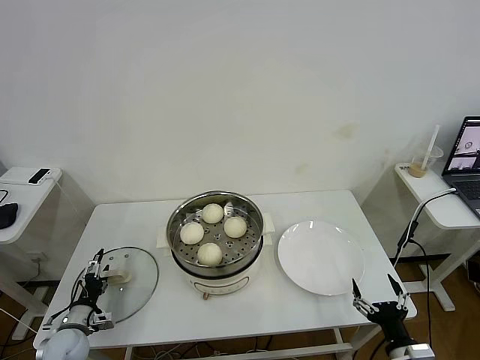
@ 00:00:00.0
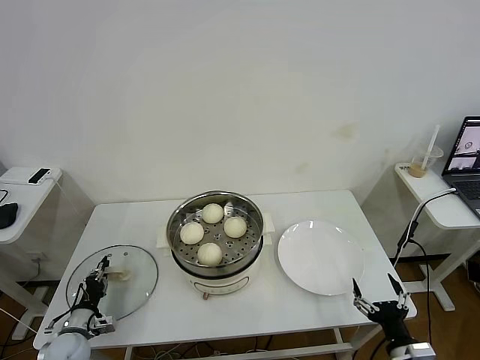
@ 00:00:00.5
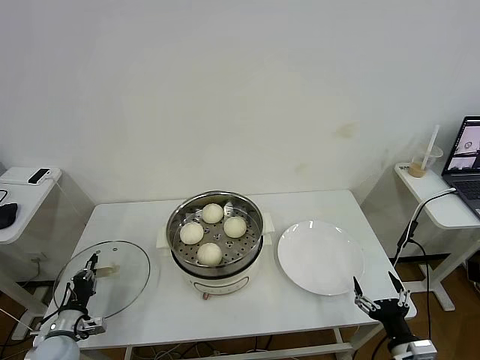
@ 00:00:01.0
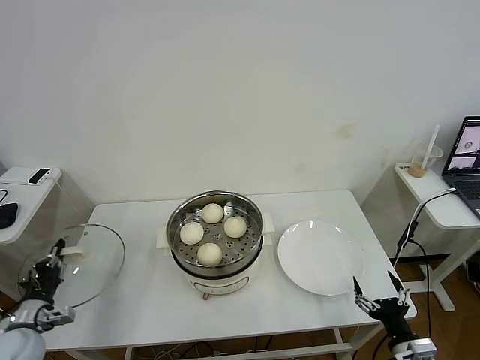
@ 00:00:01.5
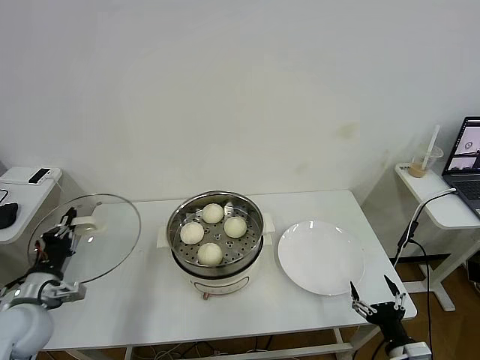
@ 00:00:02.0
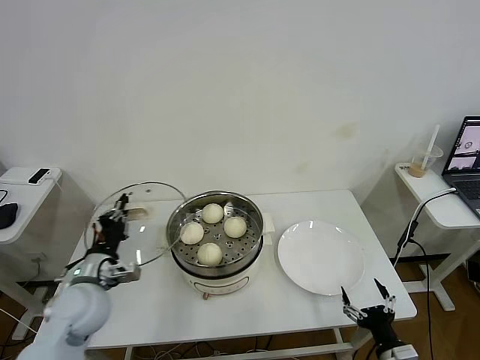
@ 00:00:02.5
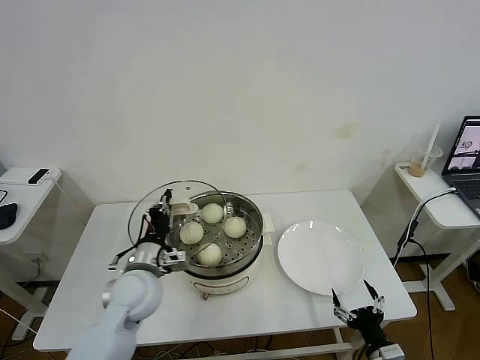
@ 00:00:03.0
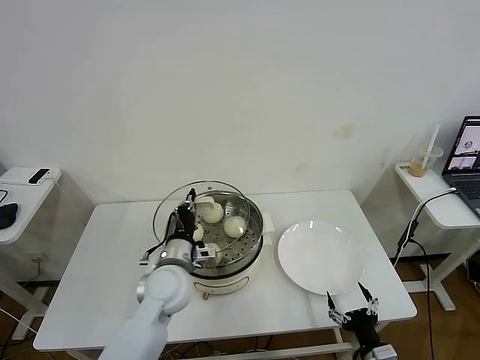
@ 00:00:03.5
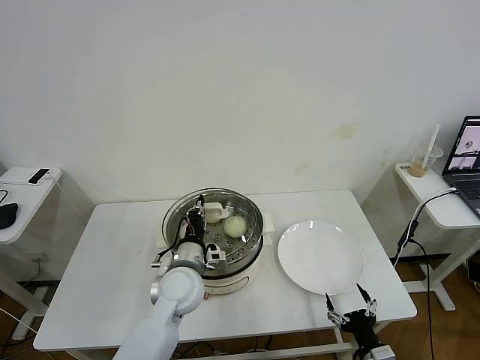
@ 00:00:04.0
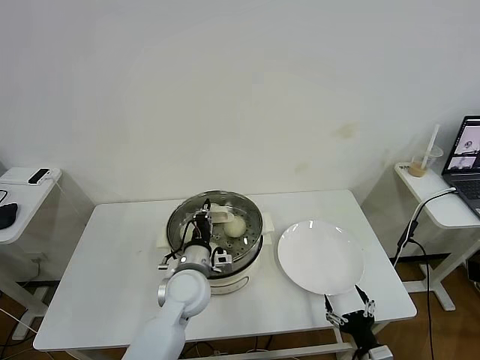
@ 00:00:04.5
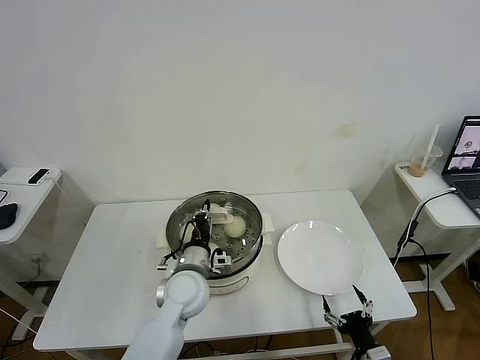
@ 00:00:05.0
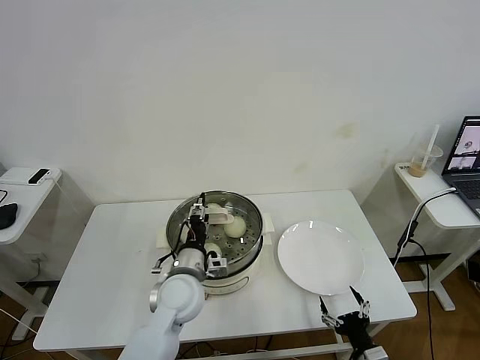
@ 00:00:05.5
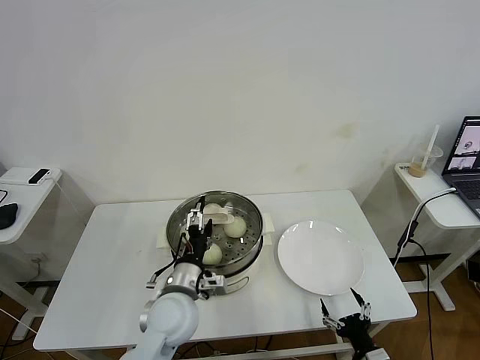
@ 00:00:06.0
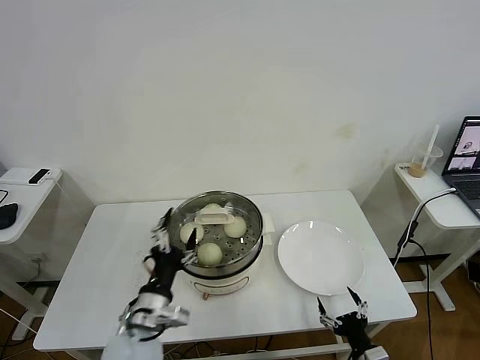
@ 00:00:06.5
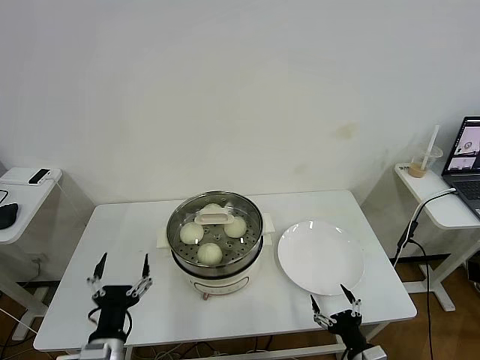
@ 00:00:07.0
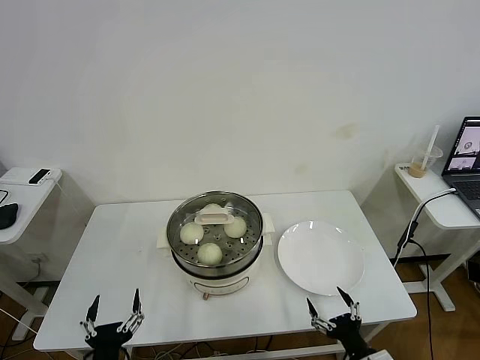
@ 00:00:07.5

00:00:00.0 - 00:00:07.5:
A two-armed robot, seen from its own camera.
Task of the whole recording: take steamed baozi put them in steamer then cover it.
Step, 00:00:01.0 - 00:00:06.0: Place the pot lid on the steamer with left gripper.
00:00:00.0 - 00:00:02.0: The left gripper heads upward, covering roughly 15 cm, and closes up.
00:00:02.0 - 00:00:04.0: The right gripper changes place by some 5 cm, while the left gripper is displaced to the right by roughly 30 cm.
00:00:04.0 - 00:00:05.5: The left gripper opens.
00:00:05.5 - 00:00:07.5: The left gripper goes approximately 25 cm backward and to the left, and opens its fingers.
